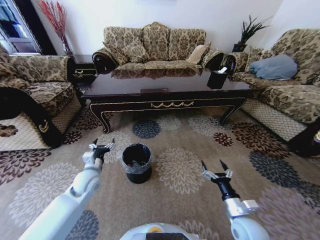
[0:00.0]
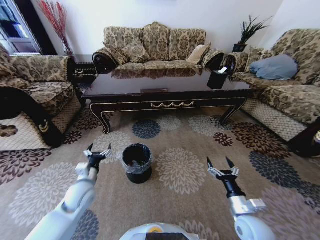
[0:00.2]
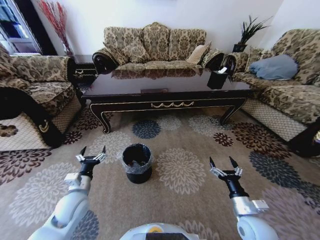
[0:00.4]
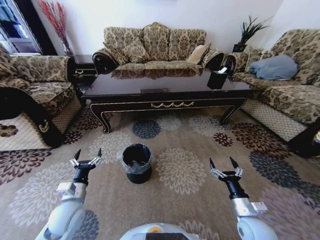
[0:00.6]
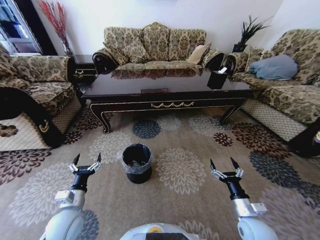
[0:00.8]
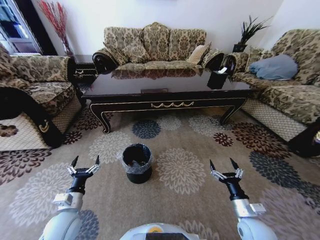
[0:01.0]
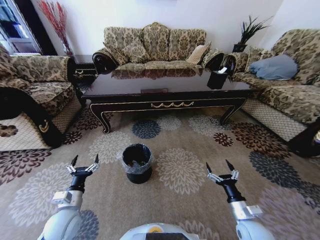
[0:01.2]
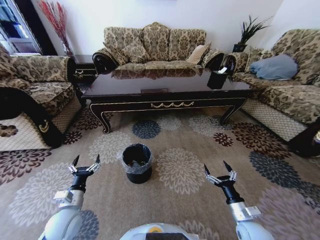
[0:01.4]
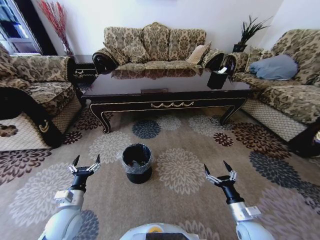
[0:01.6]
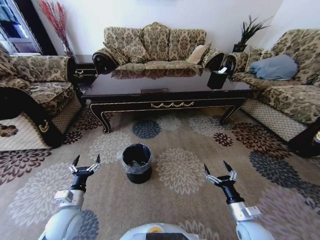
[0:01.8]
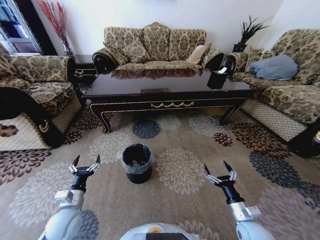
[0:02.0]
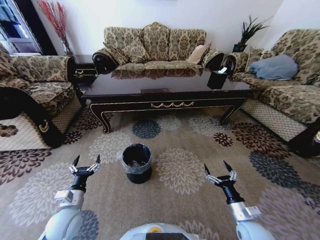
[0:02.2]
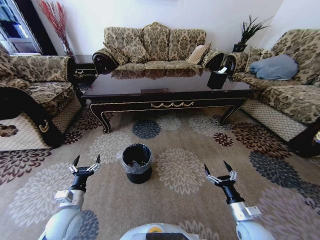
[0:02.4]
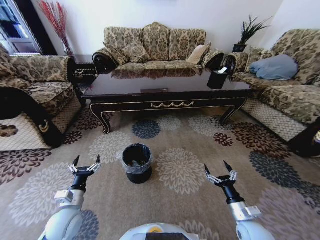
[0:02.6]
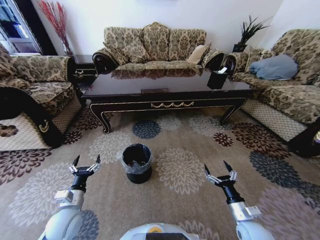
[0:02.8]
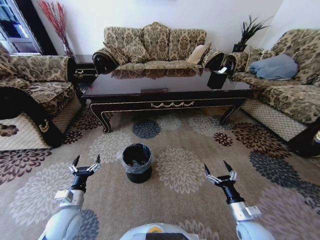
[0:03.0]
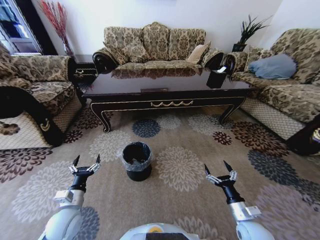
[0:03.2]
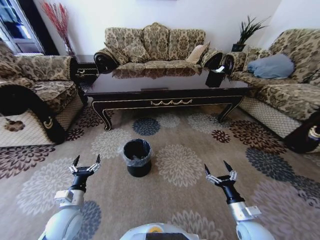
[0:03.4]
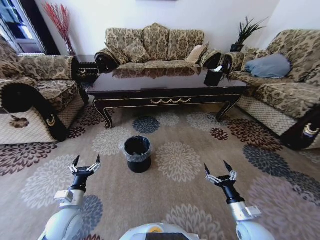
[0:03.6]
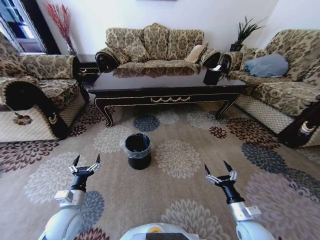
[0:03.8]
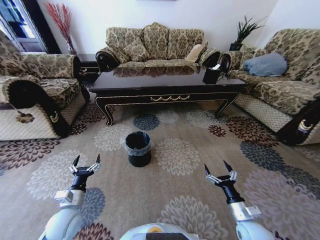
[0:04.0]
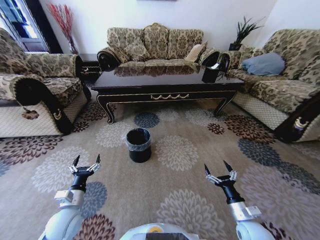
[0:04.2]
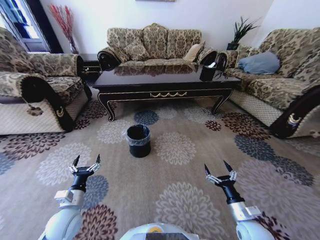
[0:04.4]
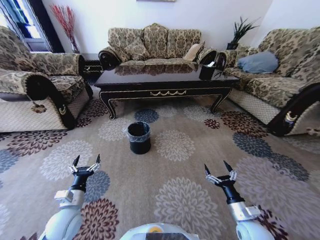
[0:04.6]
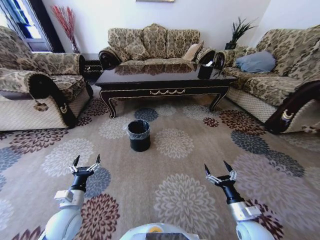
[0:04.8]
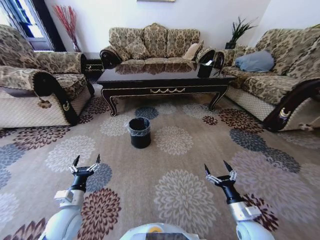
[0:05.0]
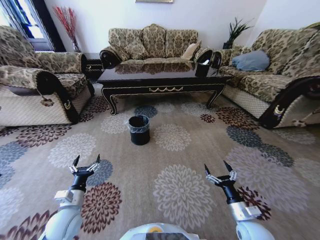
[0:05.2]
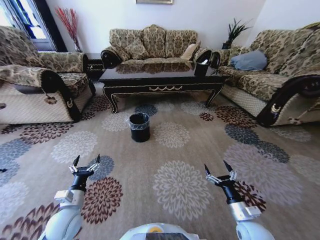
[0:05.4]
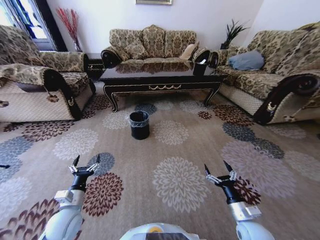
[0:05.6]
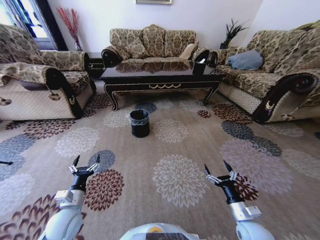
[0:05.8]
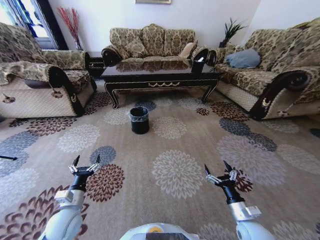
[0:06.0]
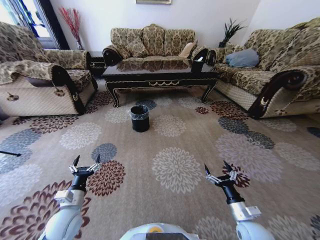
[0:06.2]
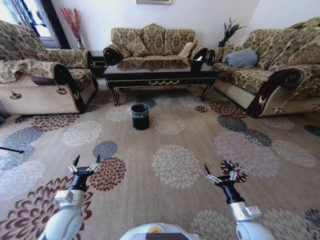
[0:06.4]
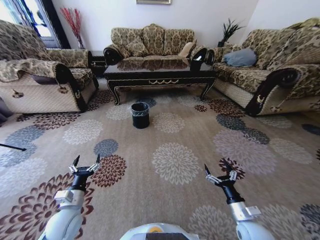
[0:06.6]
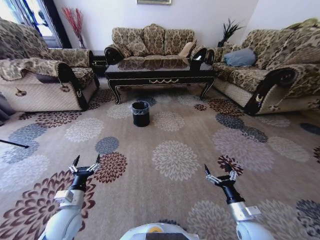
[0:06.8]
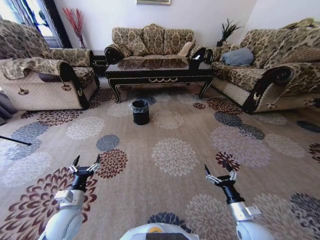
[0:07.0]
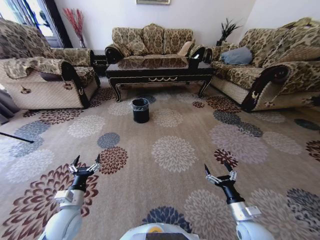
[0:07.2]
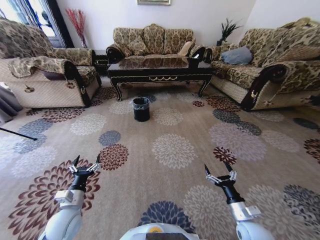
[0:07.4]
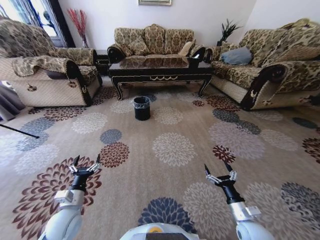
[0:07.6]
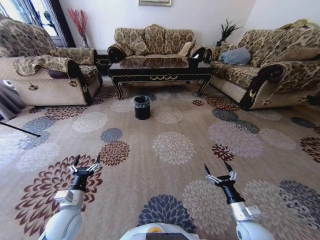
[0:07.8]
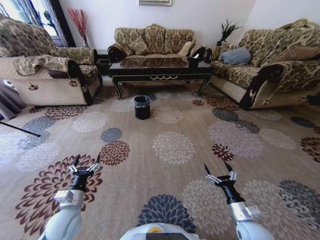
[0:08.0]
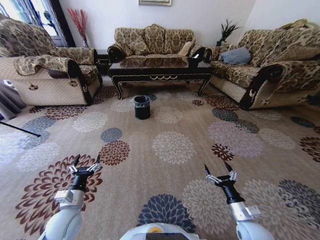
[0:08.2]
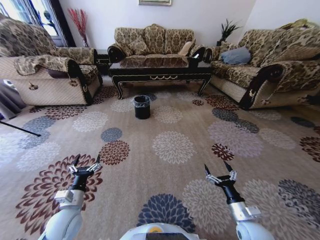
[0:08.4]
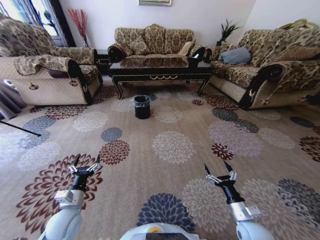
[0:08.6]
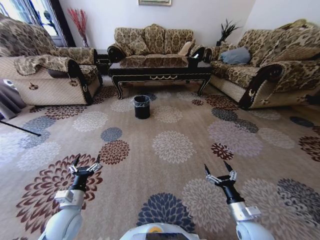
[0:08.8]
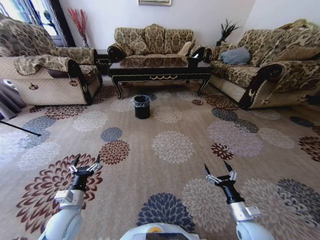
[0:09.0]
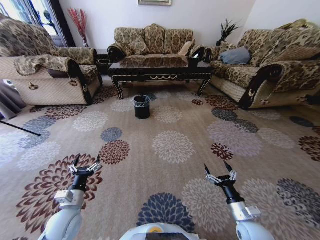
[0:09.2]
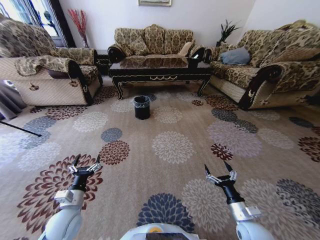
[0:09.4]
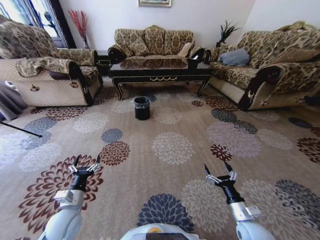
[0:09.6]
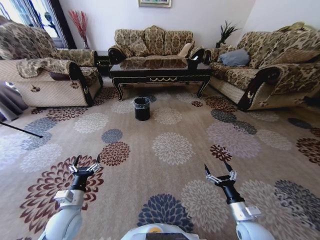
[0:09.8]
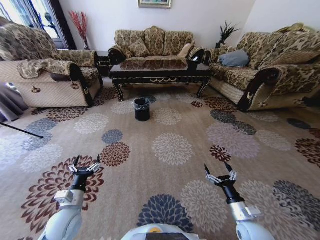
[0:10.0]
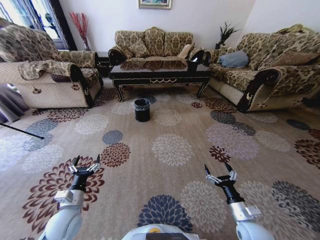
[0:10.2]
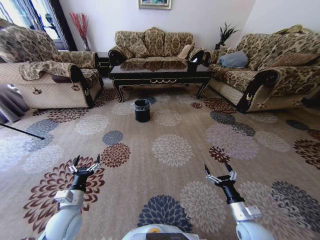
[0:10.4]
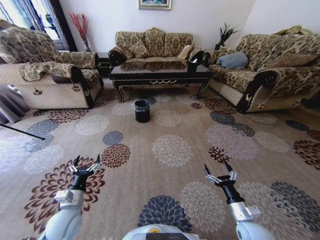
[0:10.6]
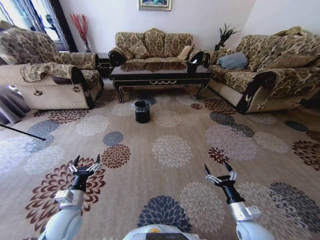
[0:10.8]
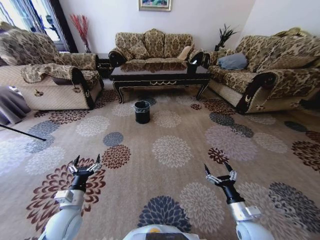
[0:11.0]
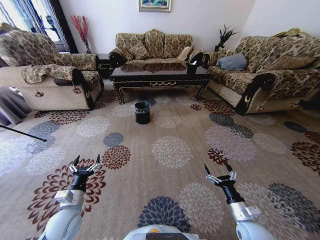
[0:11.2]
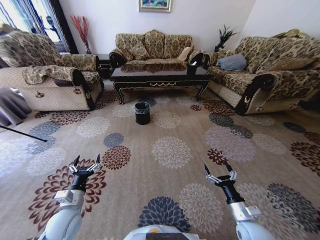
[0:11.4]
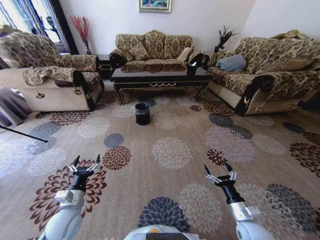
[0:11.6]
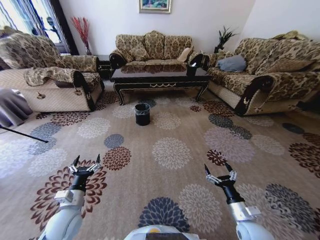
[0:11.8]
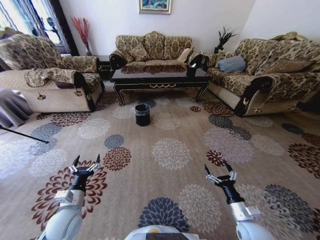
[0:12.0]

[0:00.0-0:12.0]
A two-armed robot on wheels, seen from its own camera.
Task of the whole recording: Move to the front of the table and pick up the trash from the floor, then place it into the trash bin.
0:00.0 to 0:01.6: The left gripper shifts about 15 cm backward.
0:01.6 to 0:03.0: Neither gripper changes place.
0:07.6 to 0:09.0: The two grippers keep their place.

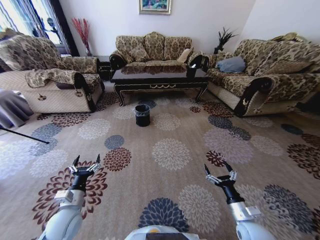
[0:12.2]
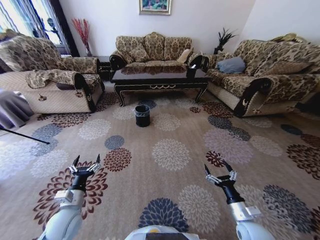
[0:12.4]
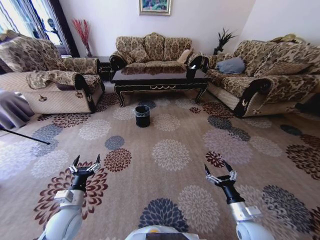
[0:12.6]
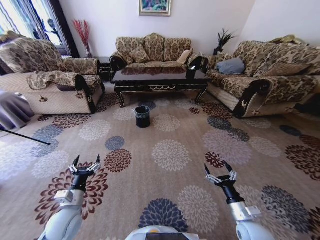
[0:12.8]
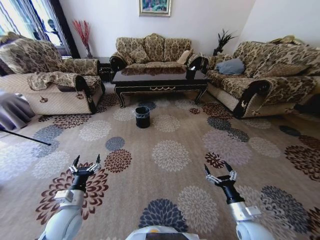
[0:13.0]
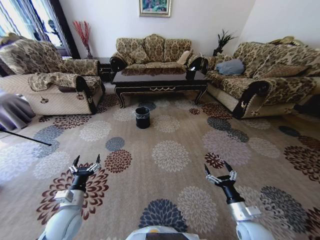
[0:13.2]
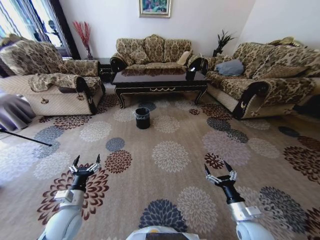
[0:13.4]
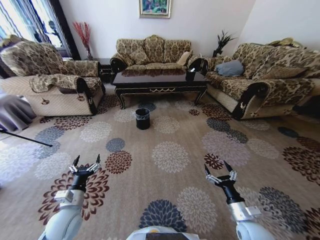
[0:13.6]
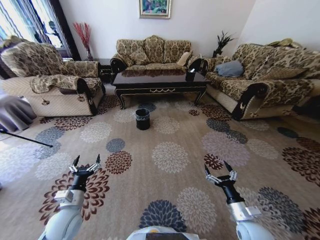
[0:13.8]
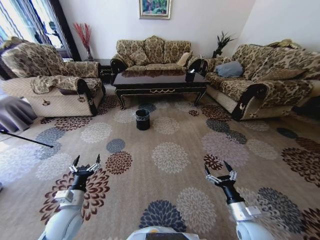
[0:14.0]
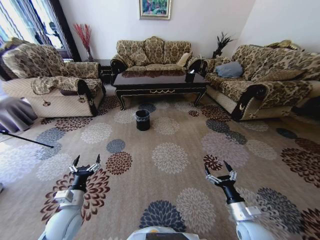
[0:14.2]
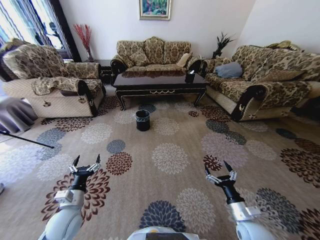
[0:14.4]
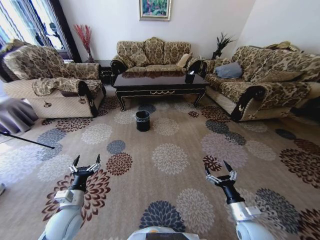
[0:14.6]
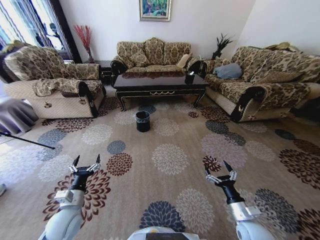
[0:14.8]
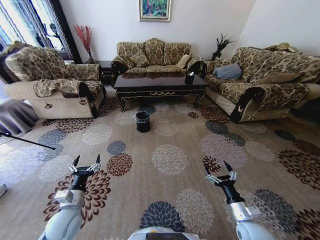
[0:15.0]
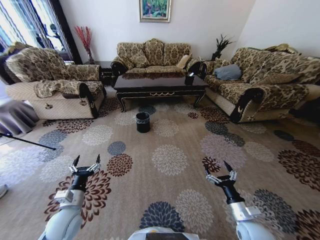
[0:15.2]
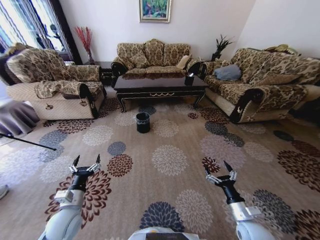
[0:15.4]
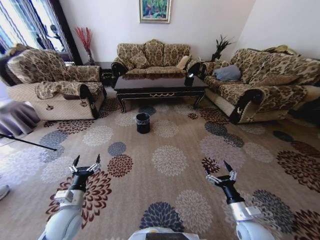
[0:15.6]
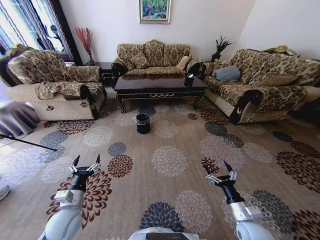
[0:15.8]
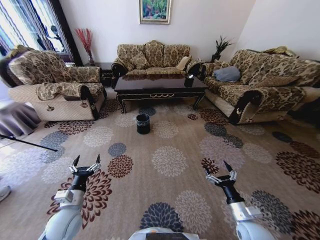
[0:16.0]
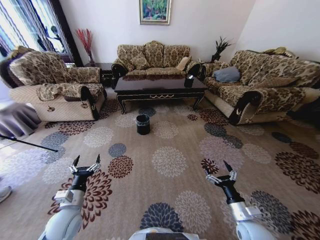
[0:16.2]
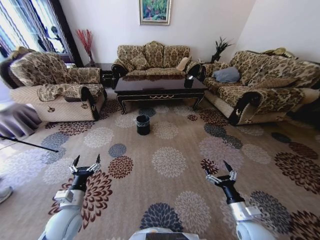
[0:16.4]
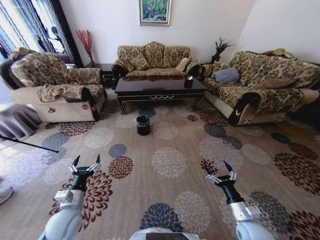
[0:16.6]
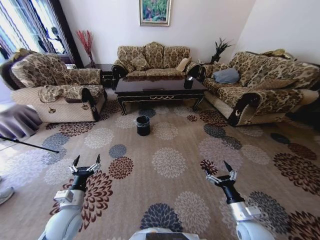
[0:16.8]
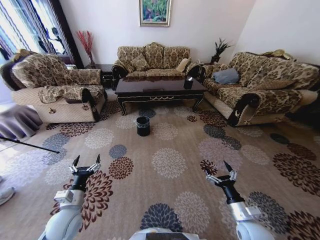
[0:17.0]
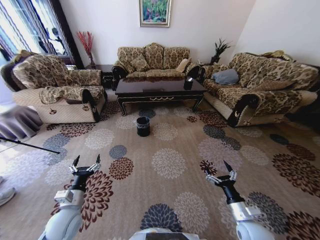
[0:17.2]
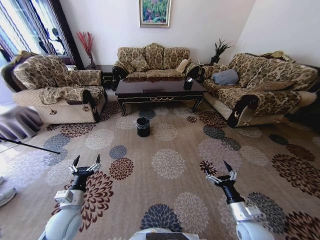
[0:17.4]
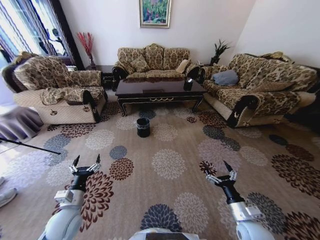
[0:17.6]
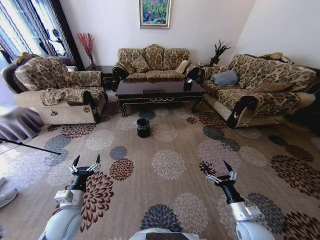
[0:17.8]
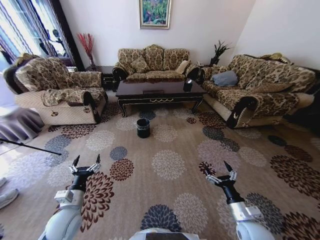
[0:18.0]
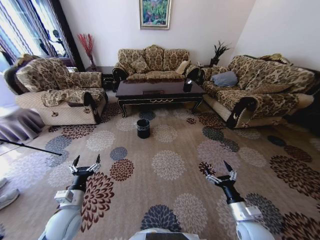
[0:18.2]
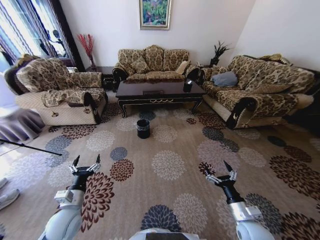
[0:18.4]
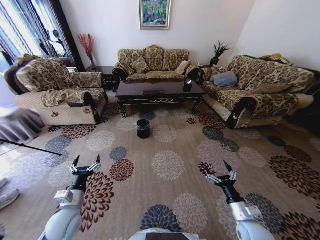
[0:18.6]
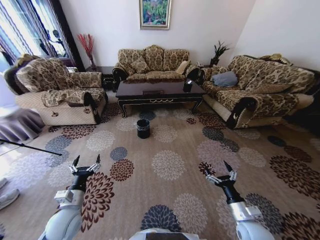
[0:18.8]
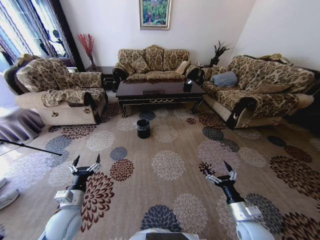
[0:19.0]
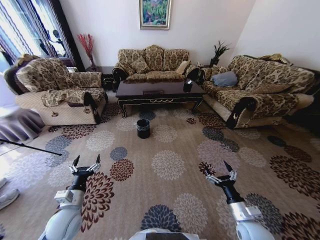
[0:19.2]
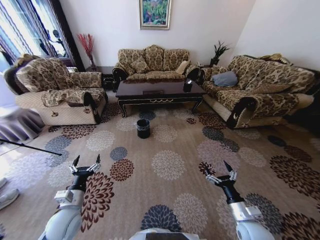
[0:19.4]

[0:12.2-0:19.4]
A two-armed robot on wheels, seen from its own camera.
Task of the whole recording: Move to the front of the table and pick up the trash from the floor, then place it into the trash bin.
0:18.0 to 0:19.4: Both grippers stay put.

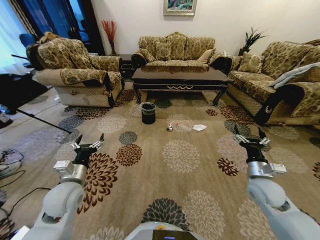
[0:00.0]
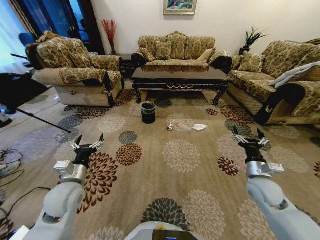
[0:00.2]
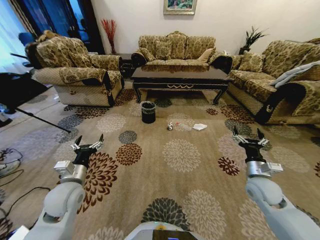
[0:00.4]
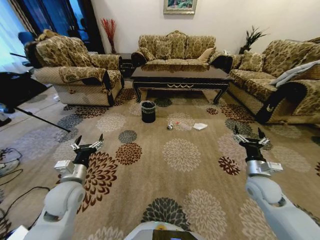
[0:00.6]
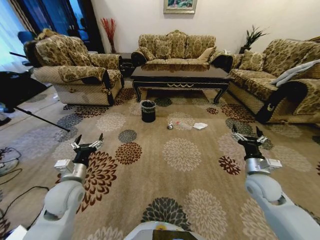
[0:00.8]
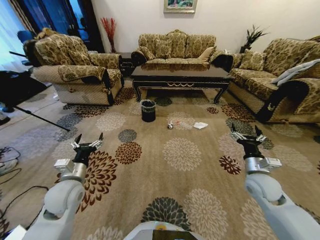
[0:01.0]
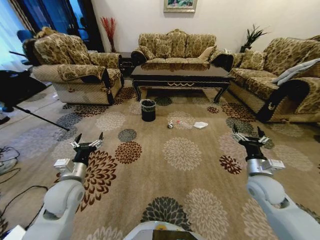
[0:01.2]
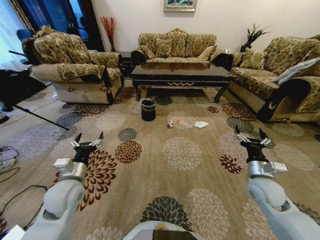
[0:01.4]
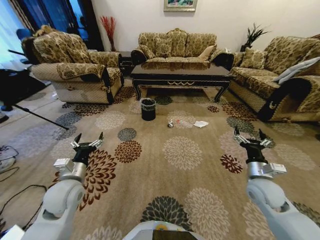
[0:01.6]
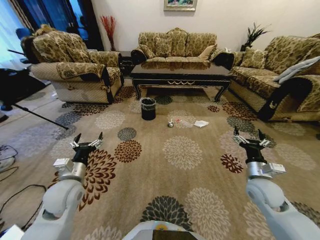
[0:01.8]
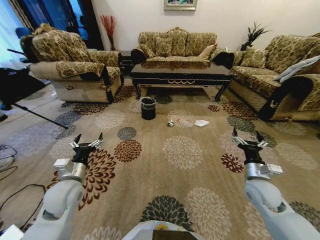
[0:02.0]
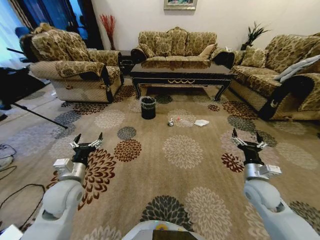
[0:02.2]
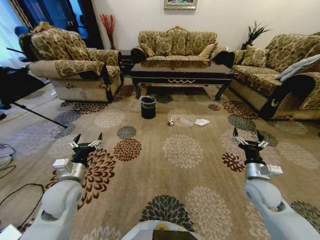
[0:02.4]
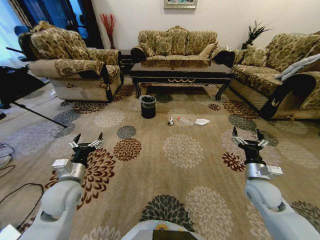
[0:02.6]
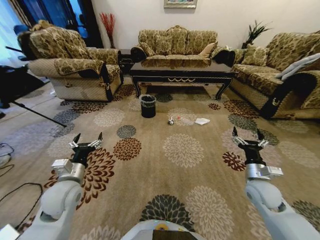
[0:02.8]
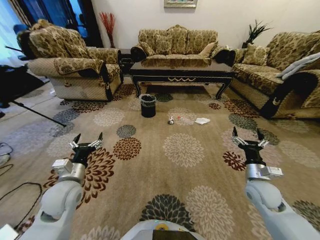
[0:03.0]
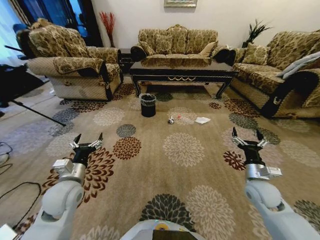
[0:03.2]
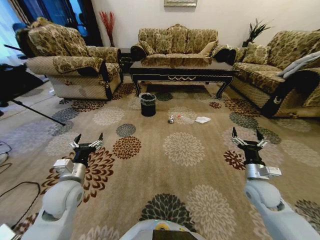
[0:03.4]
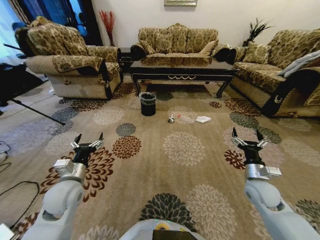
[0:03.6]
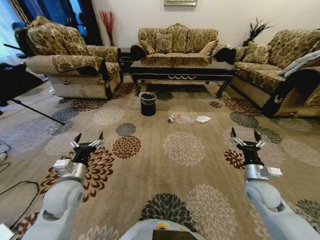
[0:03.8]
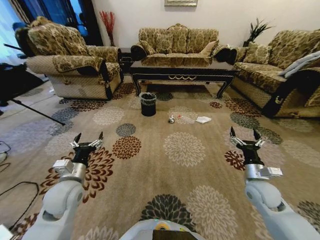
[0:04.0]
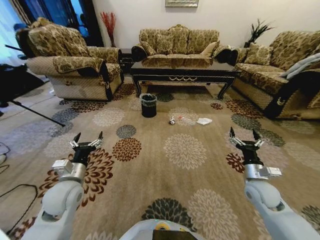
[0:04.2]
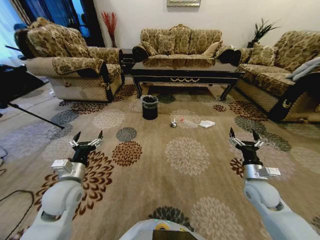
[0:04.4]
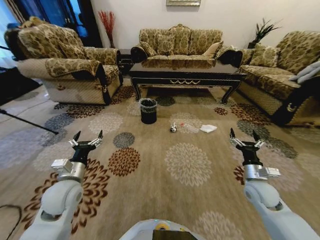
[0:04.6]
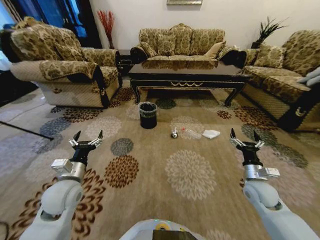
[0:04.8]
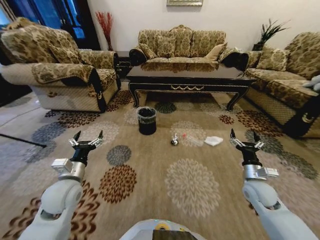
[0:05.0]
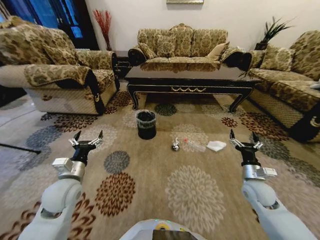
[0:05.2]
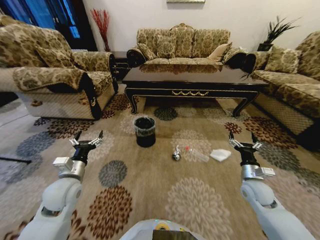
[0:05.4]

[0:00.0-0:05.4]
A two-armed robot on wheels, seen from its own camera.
Task of the whole recording: Move to the front of the table and pick up the trash from the floor, then place it into the trash bin.
0:02.8 to 0:04.0: Both grippers stay about where they are.
